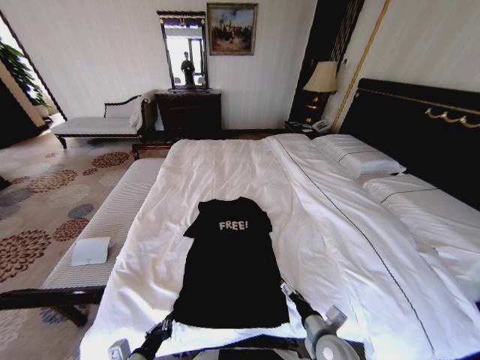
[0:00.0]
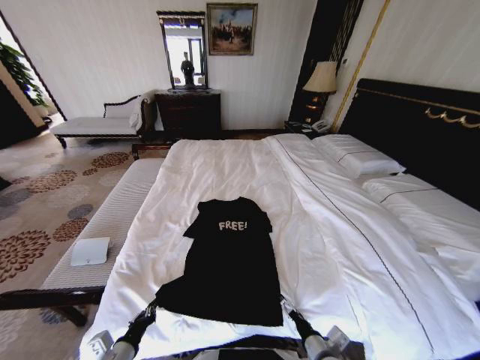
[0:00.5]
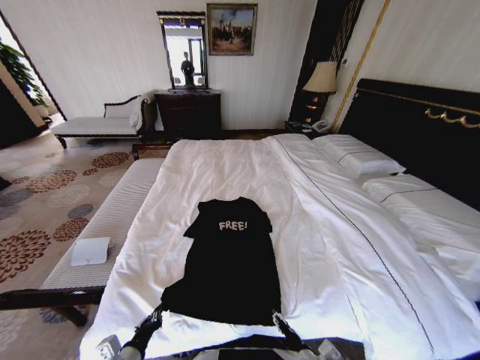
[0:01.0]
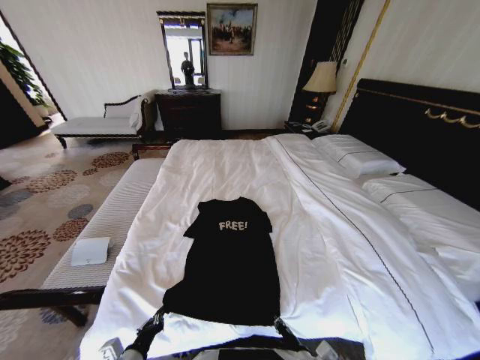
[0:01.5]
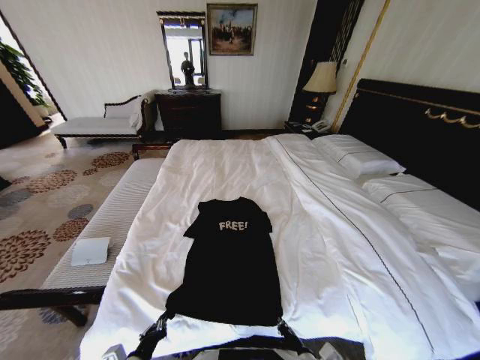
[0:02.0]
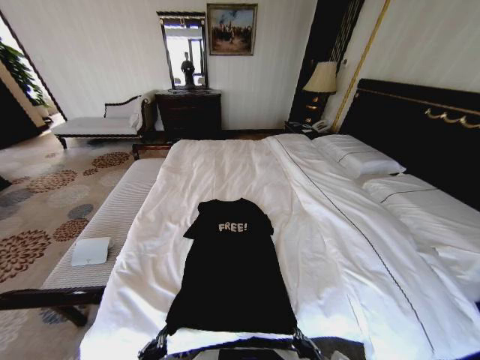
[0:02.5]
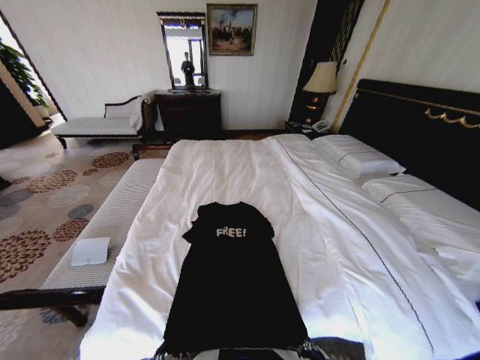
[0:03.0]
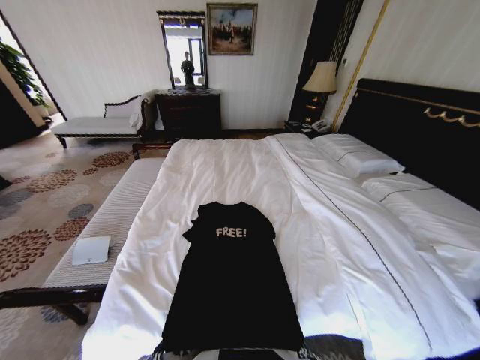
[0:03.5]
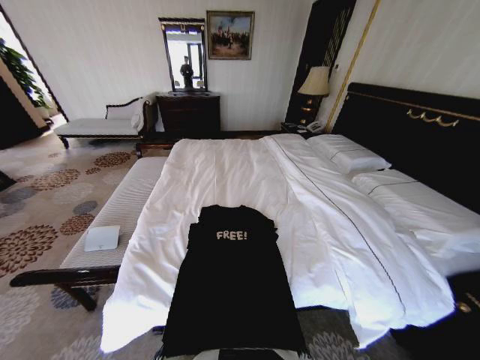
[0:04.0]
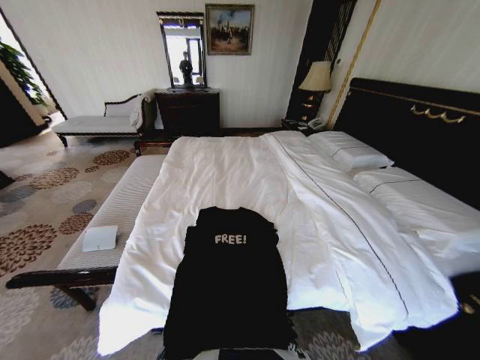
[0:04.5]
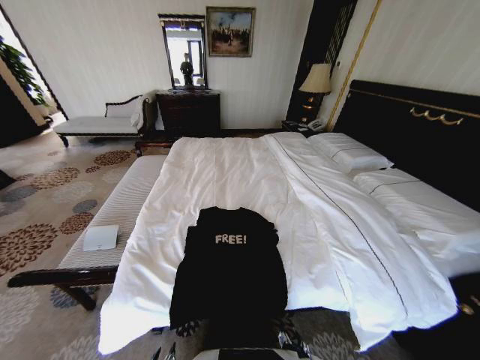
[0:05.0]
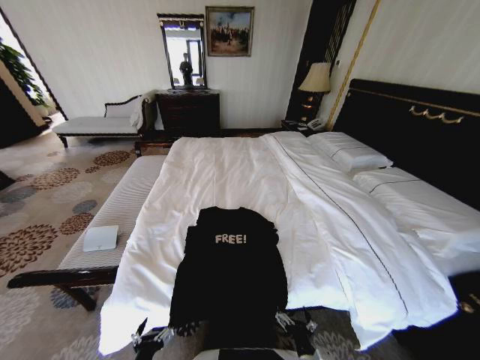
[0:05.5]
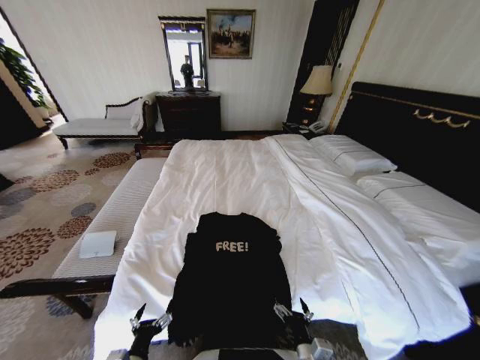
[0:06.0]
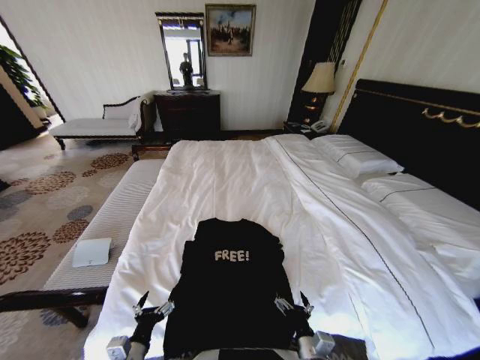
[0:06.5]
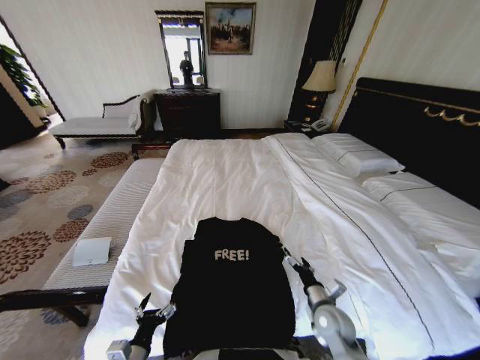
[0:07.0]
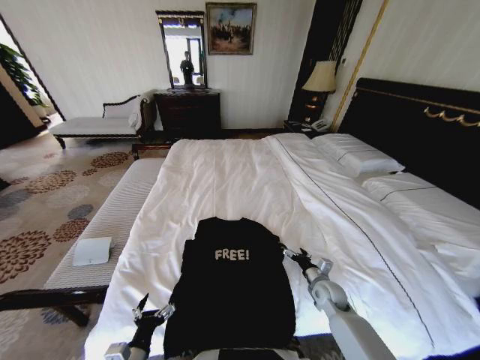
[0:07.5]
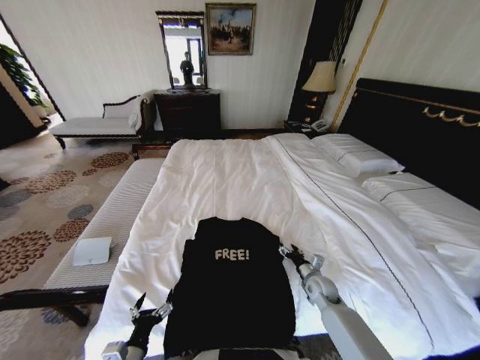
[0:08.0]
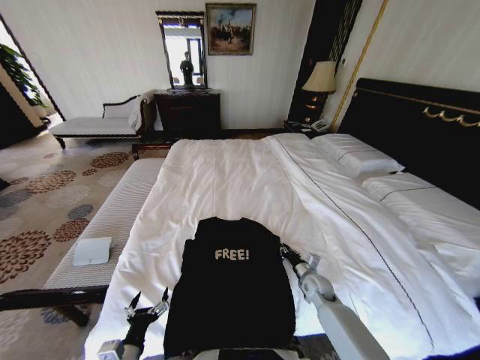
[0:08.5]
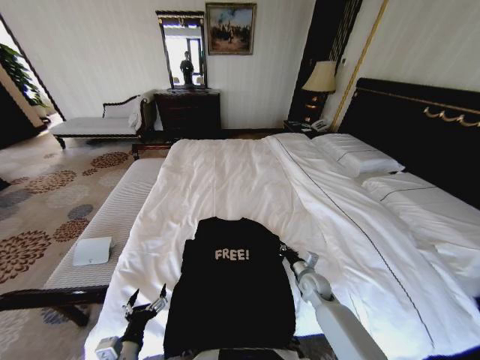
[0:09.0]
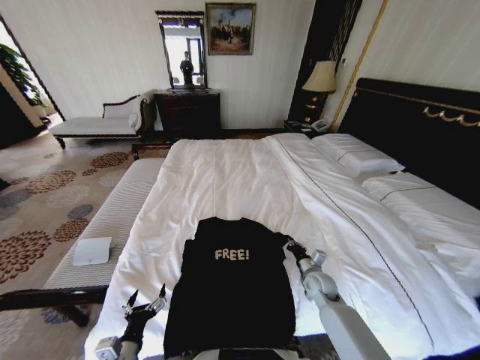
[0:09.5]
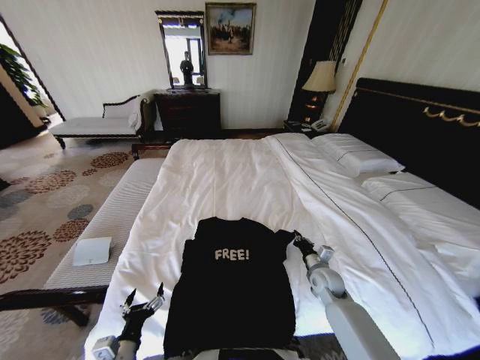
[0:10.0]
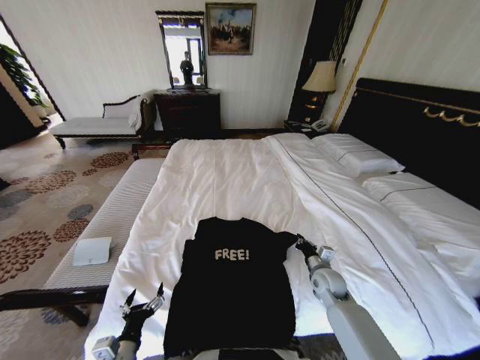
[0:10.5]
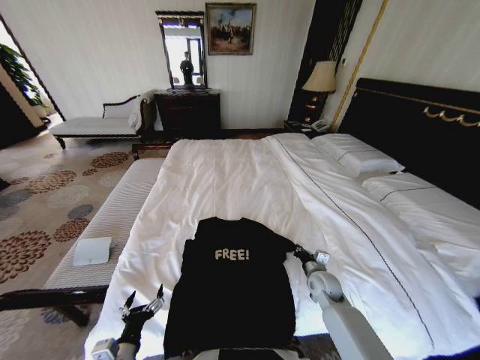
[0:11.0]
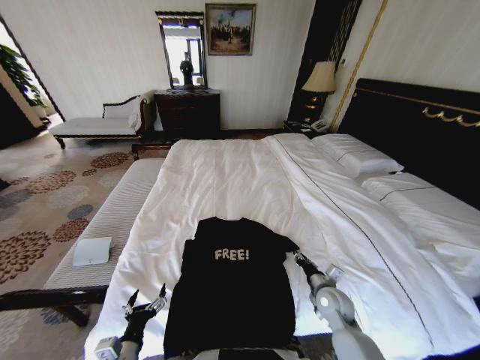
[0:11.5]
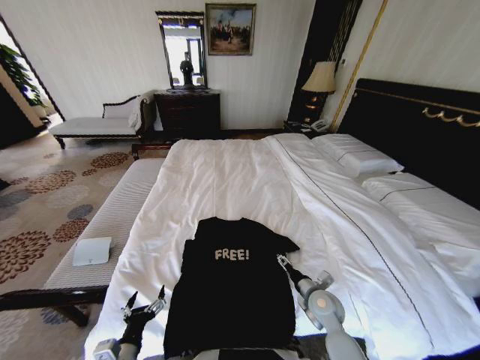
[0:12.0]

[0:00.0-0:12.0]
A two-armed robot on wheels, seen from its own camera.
Task of the whole recording: Fold the clothes on the bed.
0:00.0 to 0:02.0: The right gripper travels backward by about 10 cm, and closes up.
0:02.0 to 0:04.0: The two grippers go roughly 10 cm backward.
0:04.0 to 0:06.0: The two grippers go roughly 10 cm forward. The right gripper opens its fingers. Meanwhile the left gripper opens its fingers.
0:06.0 to 0:08.0: The right gripper heads forward and to the right, covering about 25 cm.
0:08.0 to 0:10.0: The right gripper closes its fingers.
0:10.0 to 0:12.0: The right gripper moves backward, some 5 cm, and opens its fingers.

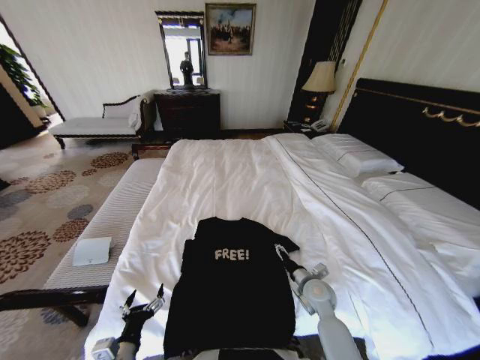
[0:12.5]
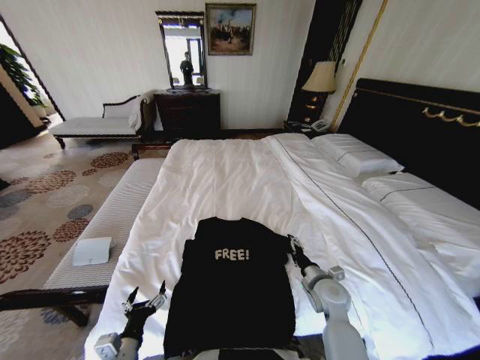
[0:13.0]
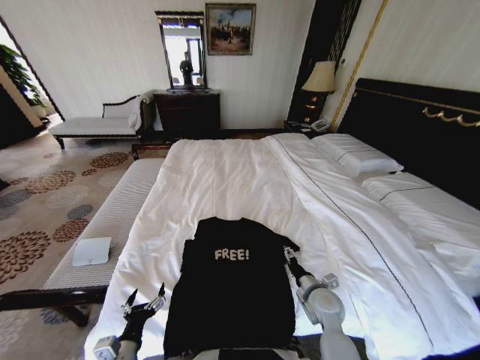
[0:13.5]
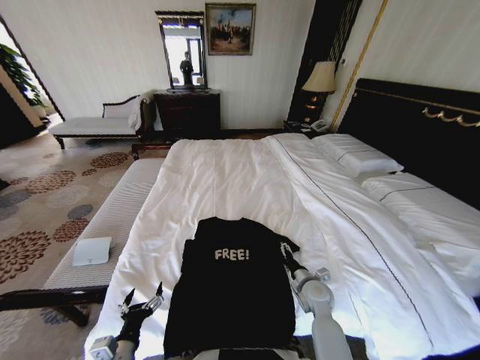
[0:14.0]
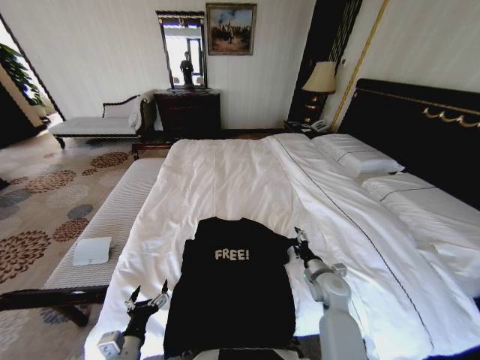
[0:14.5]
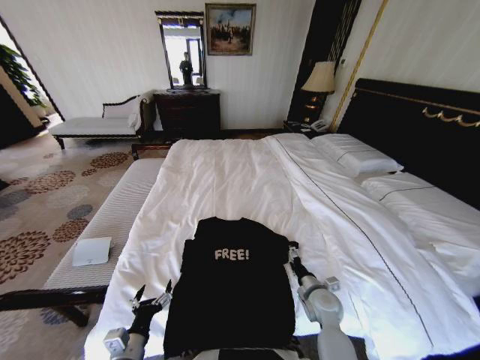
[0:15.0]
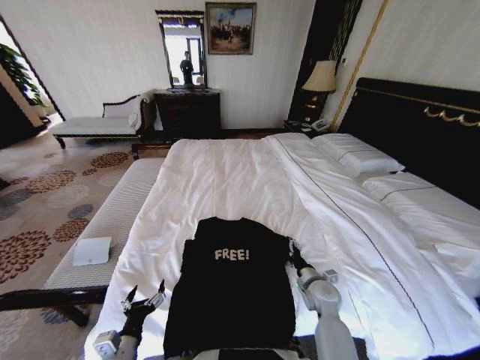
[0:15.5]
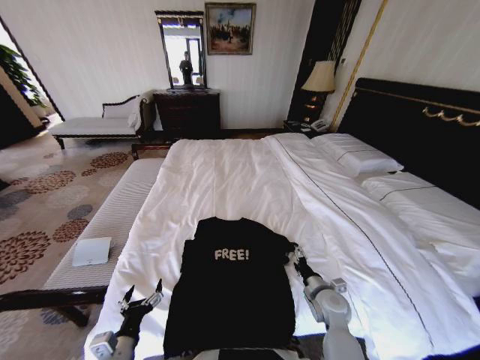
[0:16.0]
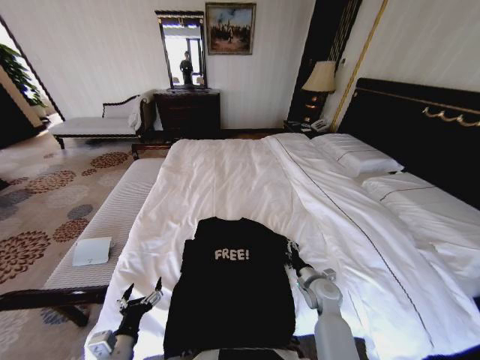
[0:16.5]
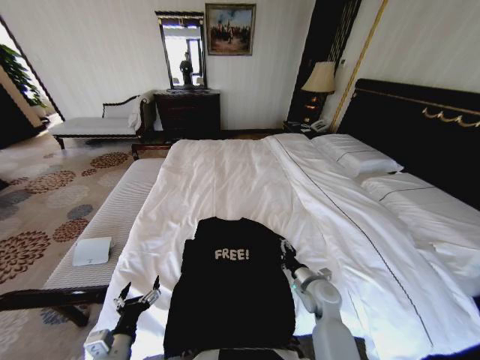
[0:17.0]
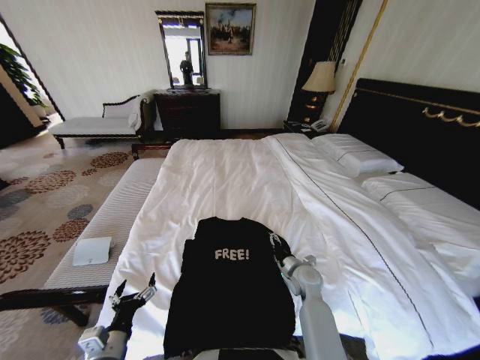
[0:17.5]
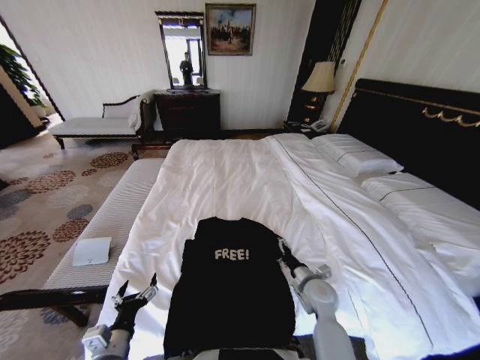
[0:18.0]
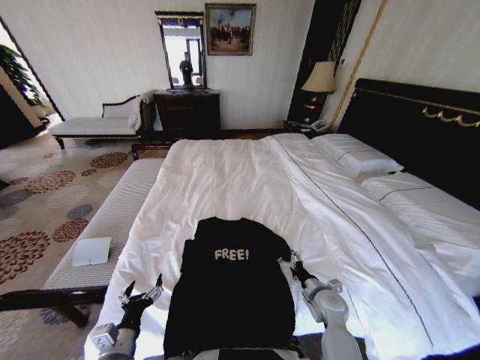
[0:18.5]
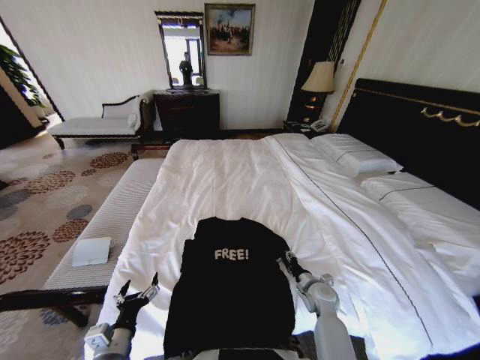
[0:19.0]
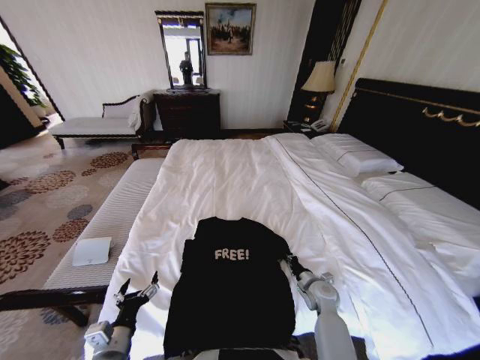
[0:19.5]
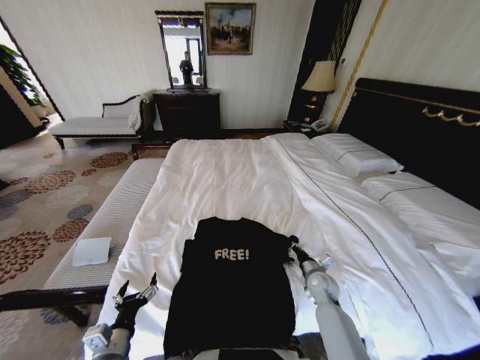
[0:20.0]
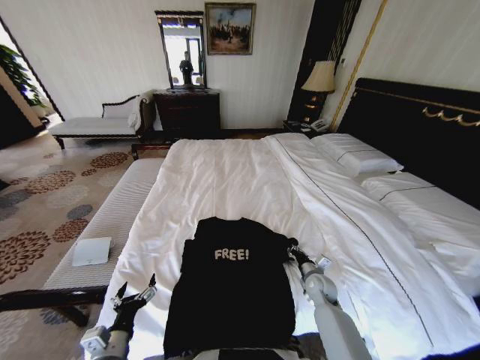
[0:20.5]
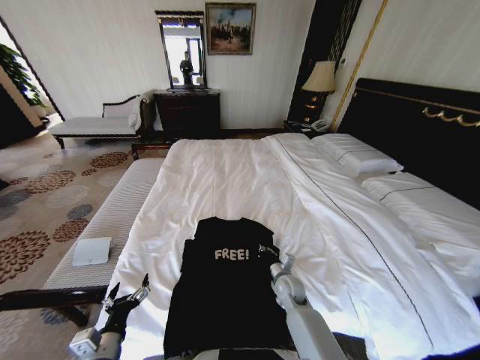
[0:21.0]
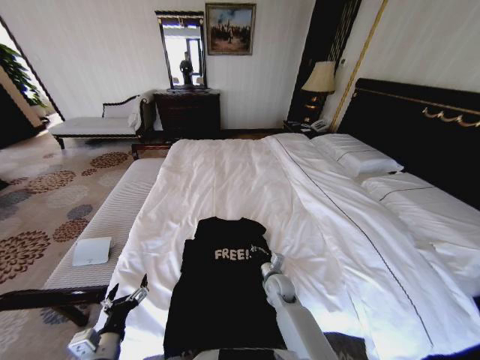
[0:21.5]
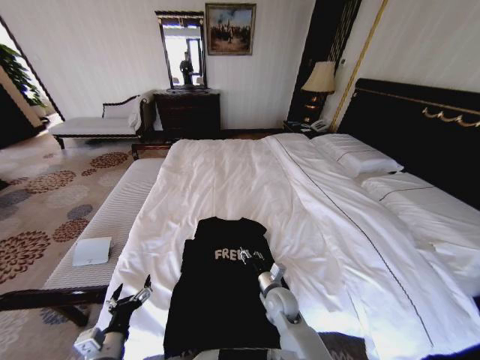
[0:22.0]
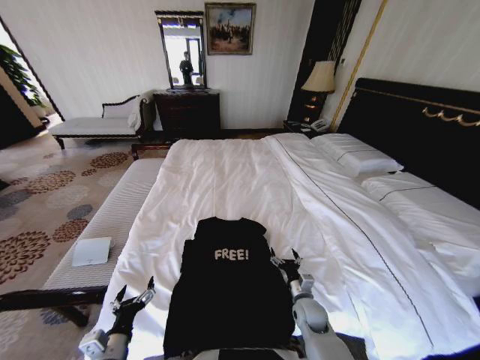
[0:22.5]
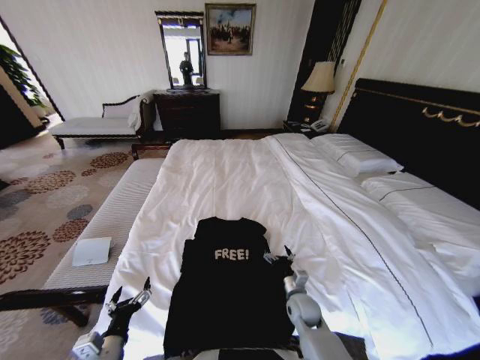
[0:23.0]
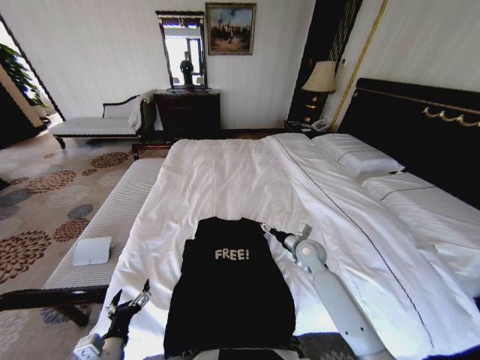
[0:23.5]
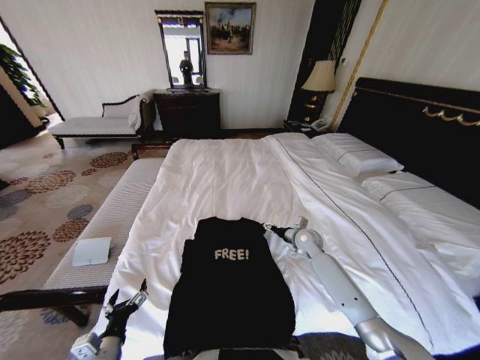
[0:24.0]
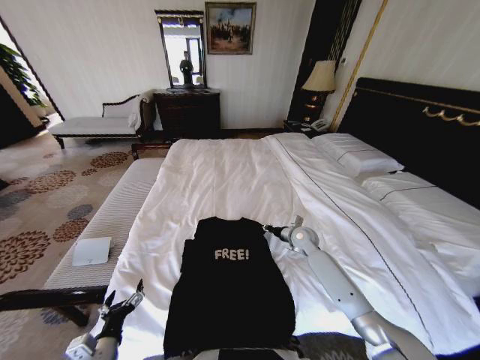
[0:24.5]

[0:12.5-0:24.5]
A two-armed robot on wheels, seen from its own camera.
Task of the whole recording: Fold the clothes on the bed.
0:18.5 to 0:20.5: The right gripper travels forward by approximately 5 cm, and closes its fingers.
0:20.5 to 0:22.5: The right gripper travels backward and to the left by approximately 10 cm, and opens its fingers.
0:22.5 to 0:24.5: The right gripper shifts approximately 25 cm forward and upward, and closes its fingers.

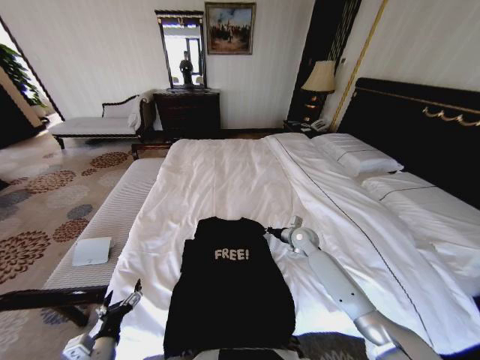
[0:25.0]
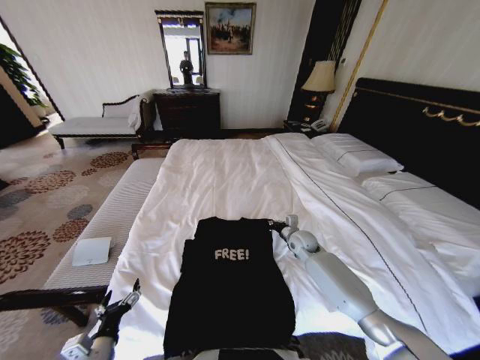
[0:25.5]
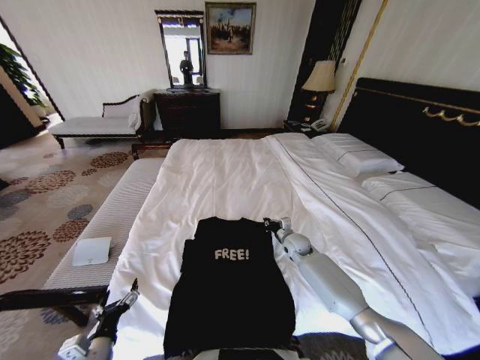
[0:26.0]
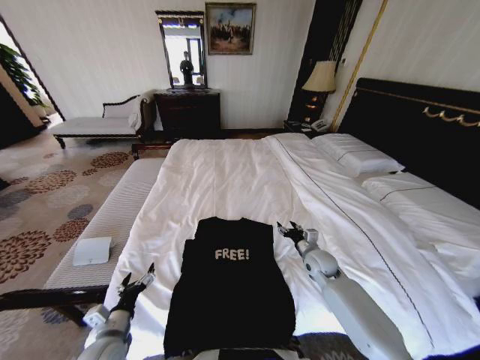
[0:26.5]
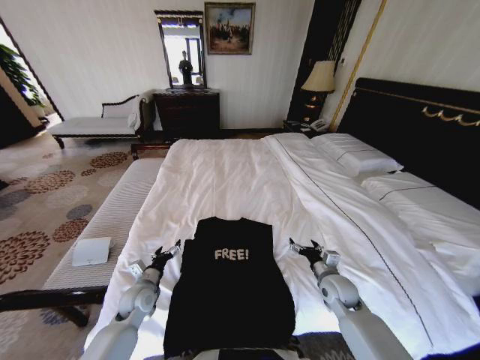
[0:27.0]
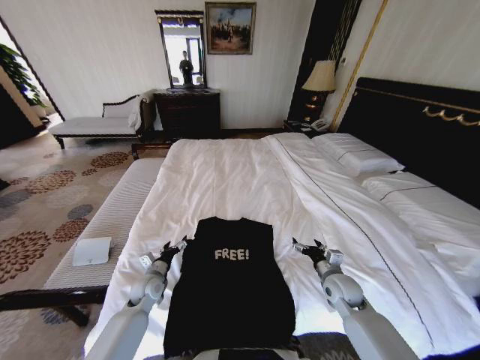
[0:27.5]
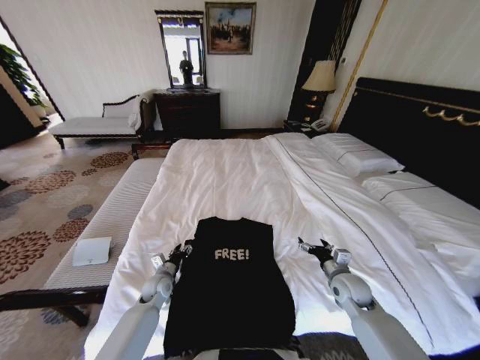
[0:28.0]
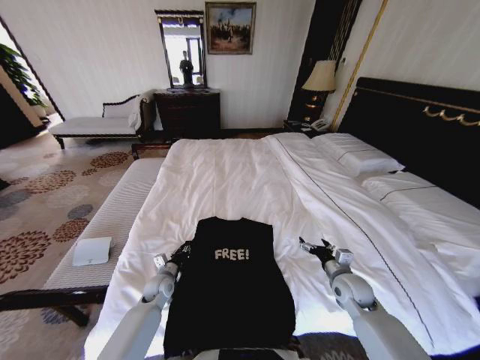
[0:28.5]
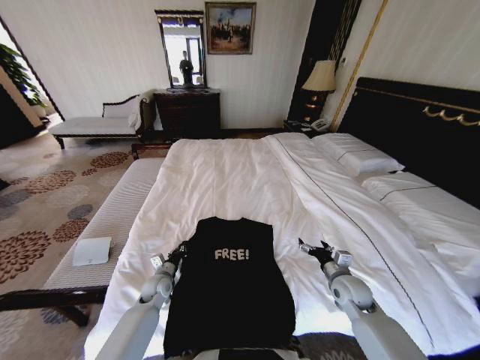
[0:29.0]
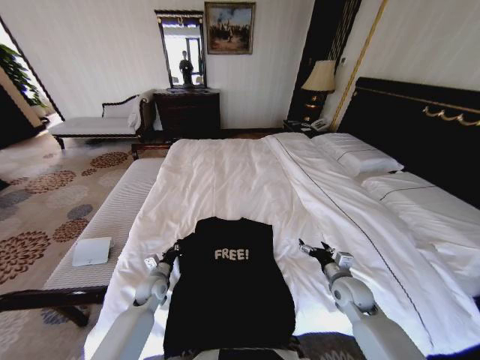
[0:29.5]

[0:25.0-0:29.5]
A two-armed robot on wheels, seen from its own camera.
Task of the whole recording: Fold the clothes on the bed.
0:25.0 to 0:27.0: The right gripper is displaced backward by about 15 cm, and opens its fingers; the left gripper goes roughly 20 cm forward.
0:27.0 to 0:29.5: The left gripper shifts by some 5 cm, and closes up.
